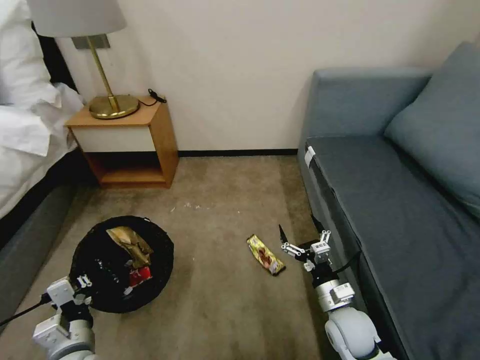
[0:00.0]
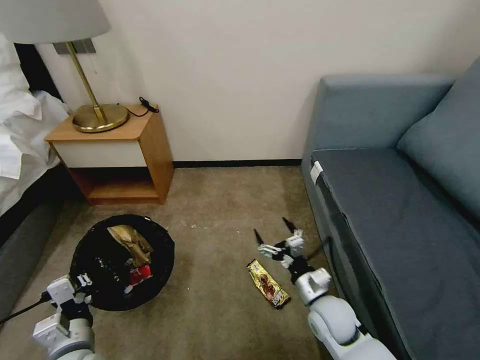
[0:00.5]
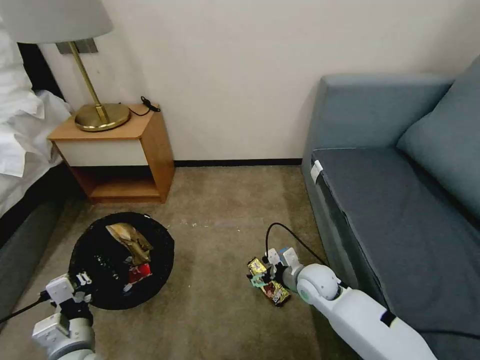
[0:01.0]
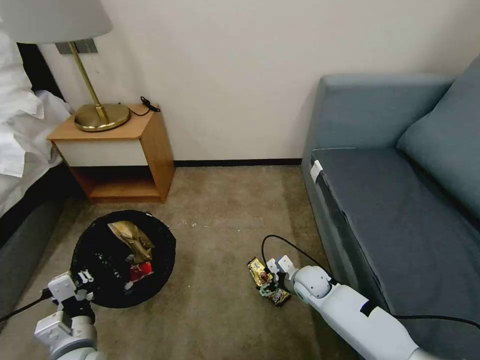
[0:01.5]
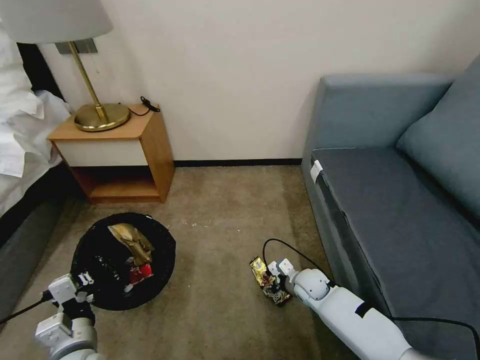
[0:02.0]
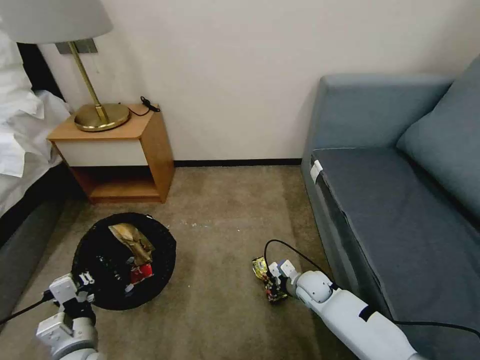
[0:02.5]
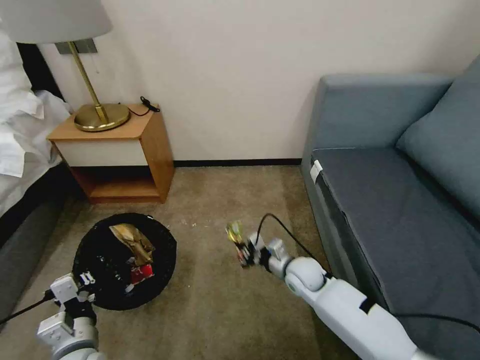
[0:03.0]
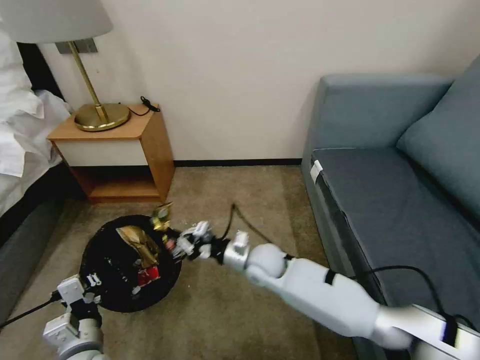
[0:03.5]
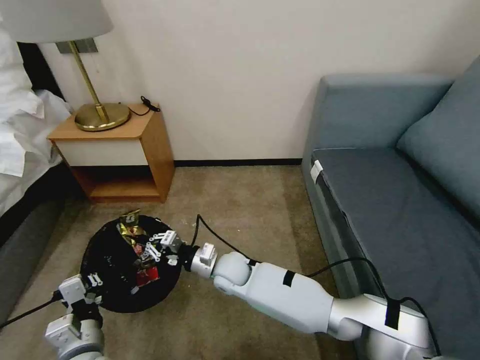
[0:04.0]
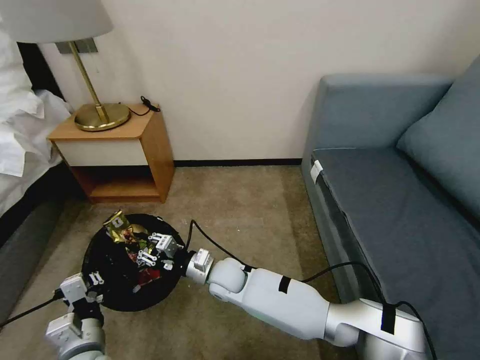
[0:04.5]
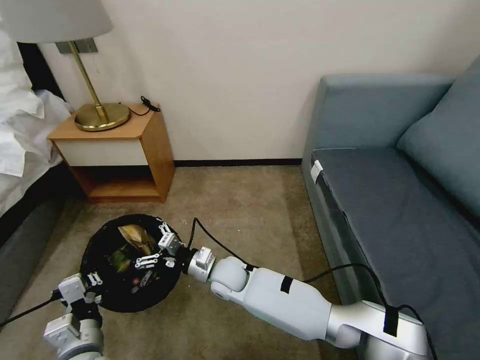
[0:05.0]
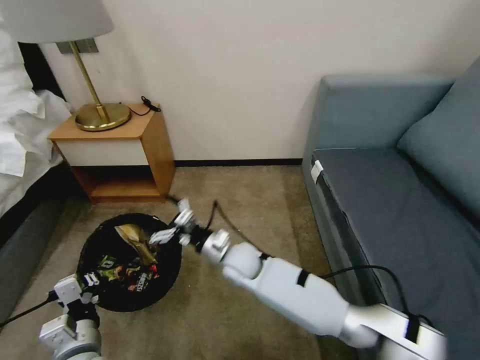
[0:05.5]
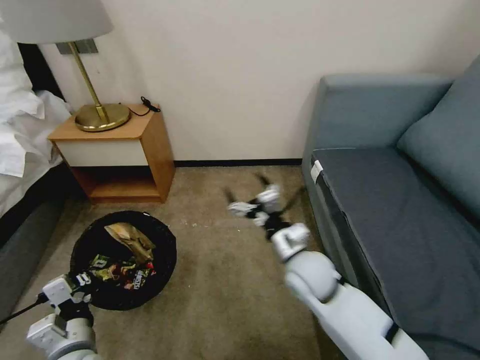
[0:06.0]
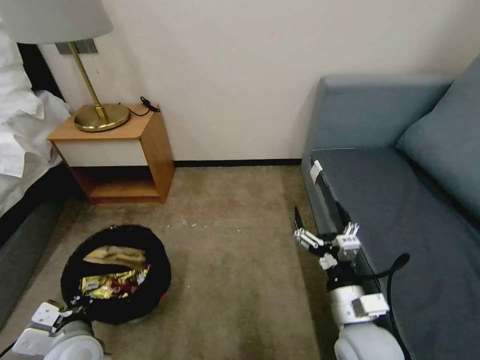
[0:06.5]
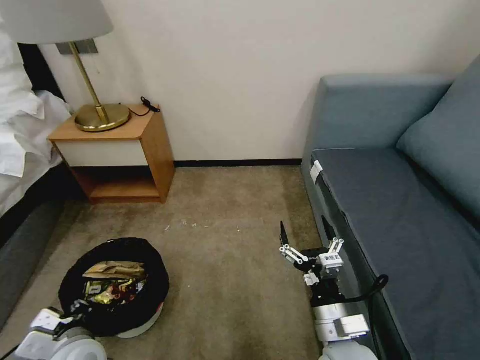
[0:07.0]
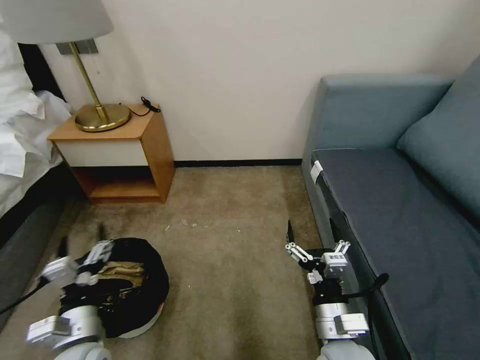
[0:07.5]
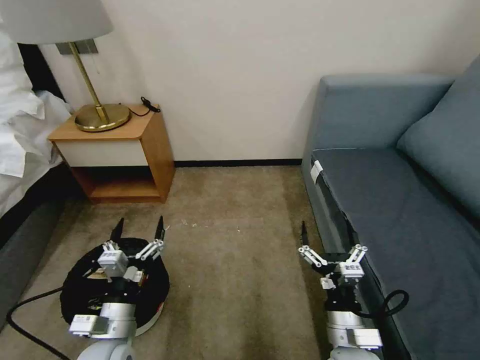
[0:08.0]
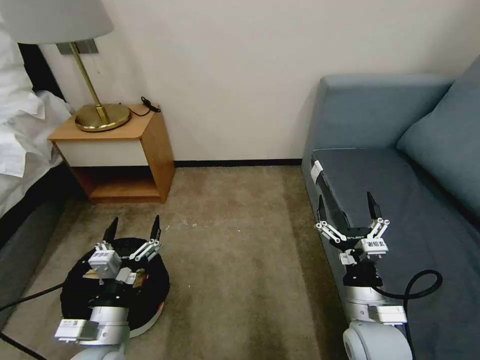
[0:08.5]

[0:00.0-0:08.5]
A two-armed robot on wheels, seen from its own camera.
Task of the whole recording: Pick up the trash bin, then pick up the garbage on the floor and place it into the trash bin.
0:00.0 to 0:02.0: The right gripper travels forward and downward by about 15 cm.
0:02.0 to 0:04.0: The right gripper is displaced to the left and upward by roughly 25 cm, and closes.
0:04.0 to 0:06.5: The right gripper is displaced to the right, backward and upward by roughly 30 cm, and opens its fingers.
0:06.5 to 0:08.5: The left gripper goes roughly 5 cm to the right, and opens its fingers.

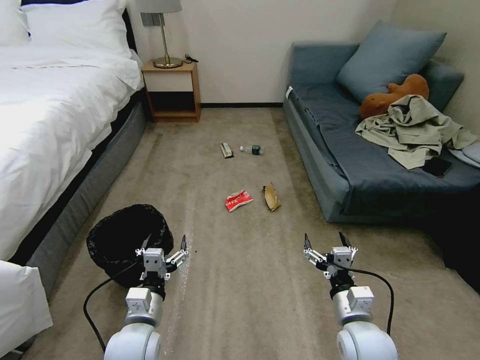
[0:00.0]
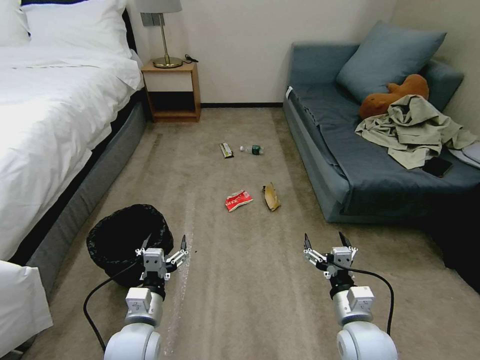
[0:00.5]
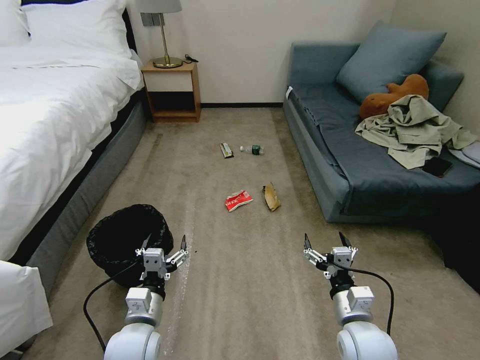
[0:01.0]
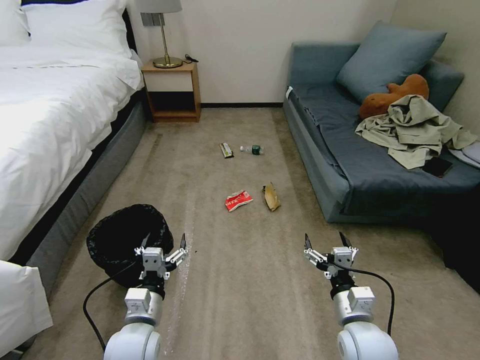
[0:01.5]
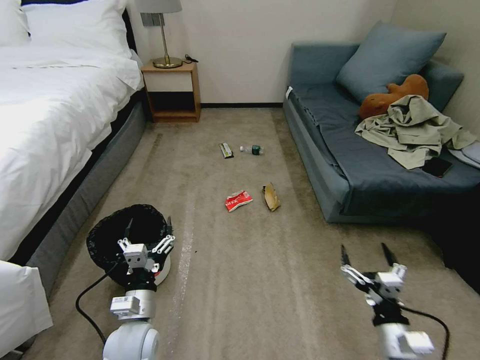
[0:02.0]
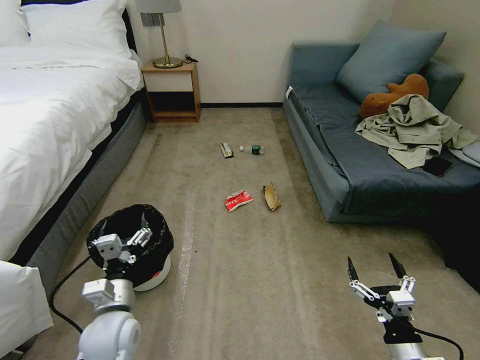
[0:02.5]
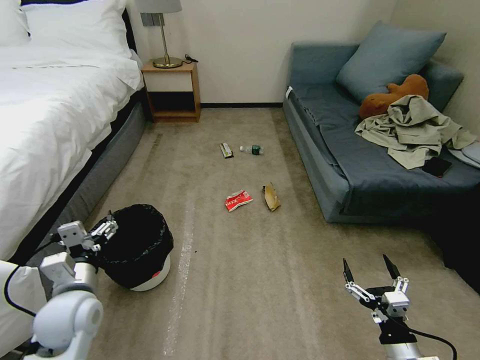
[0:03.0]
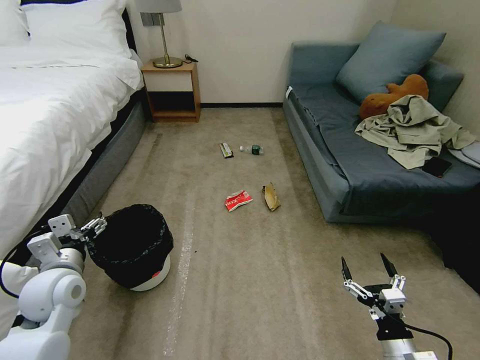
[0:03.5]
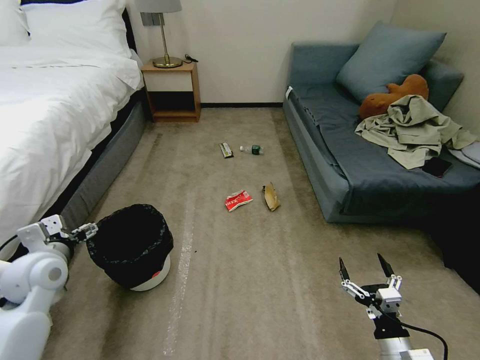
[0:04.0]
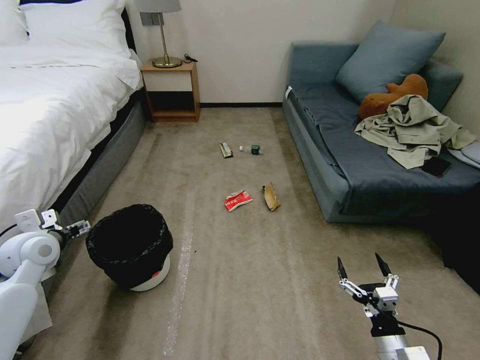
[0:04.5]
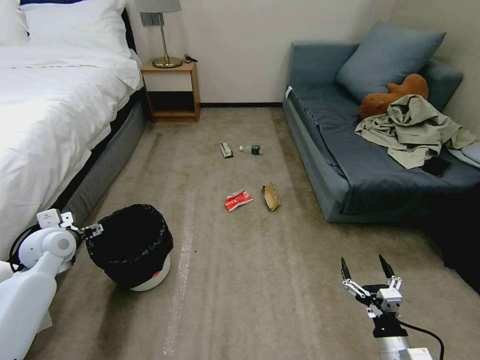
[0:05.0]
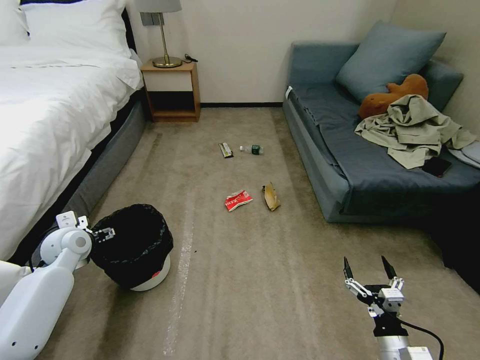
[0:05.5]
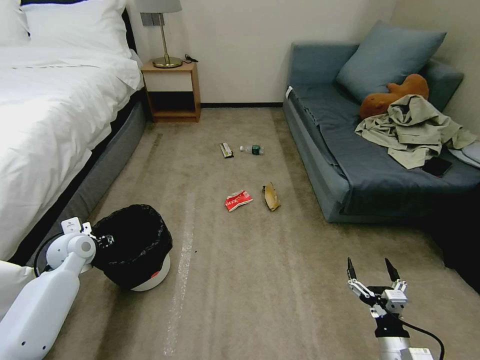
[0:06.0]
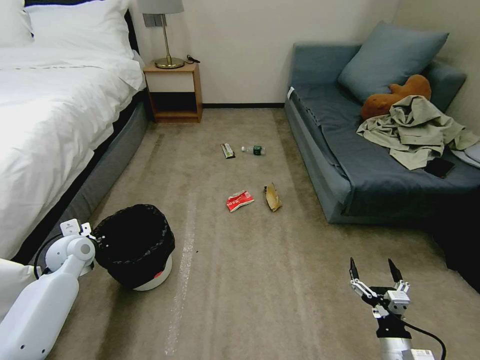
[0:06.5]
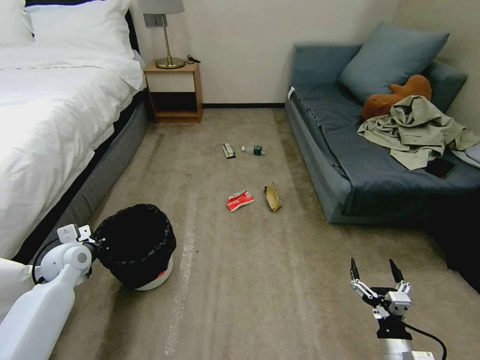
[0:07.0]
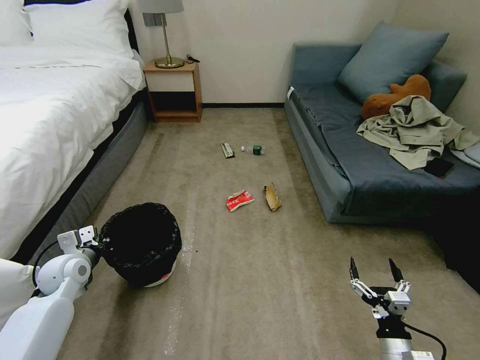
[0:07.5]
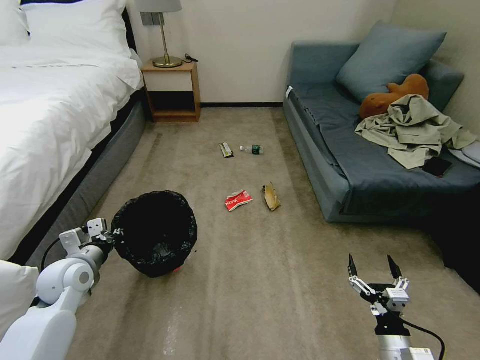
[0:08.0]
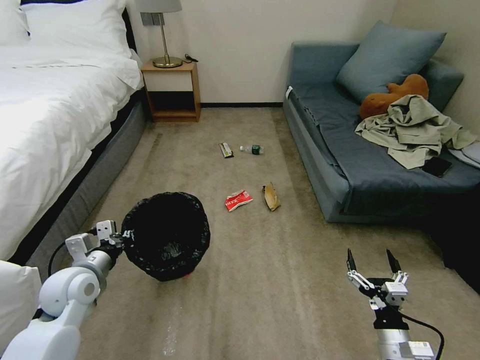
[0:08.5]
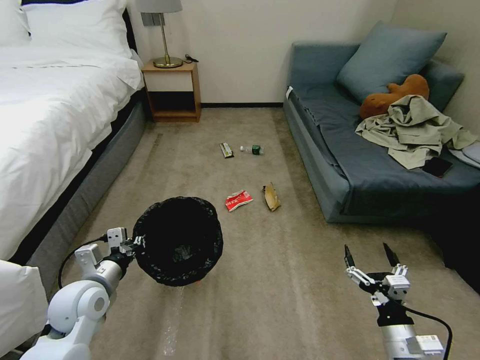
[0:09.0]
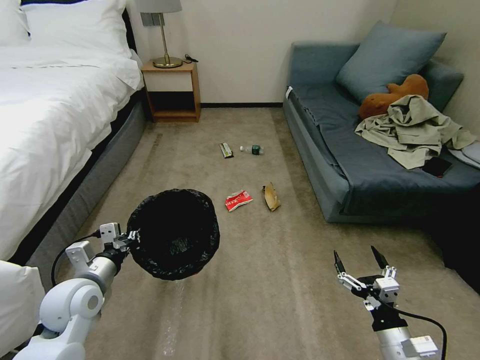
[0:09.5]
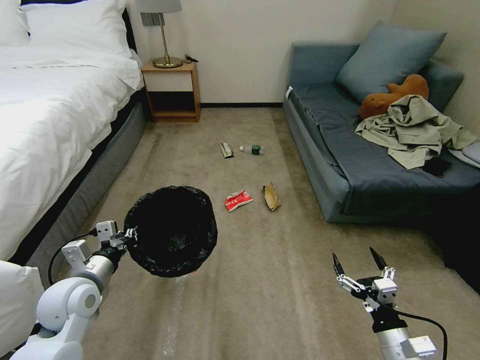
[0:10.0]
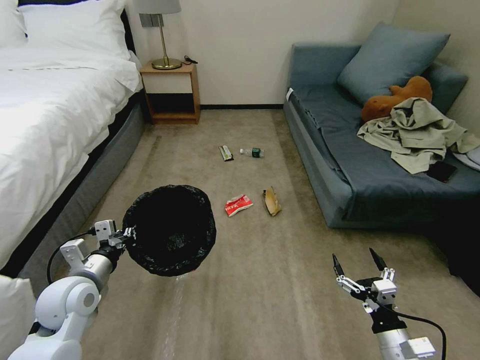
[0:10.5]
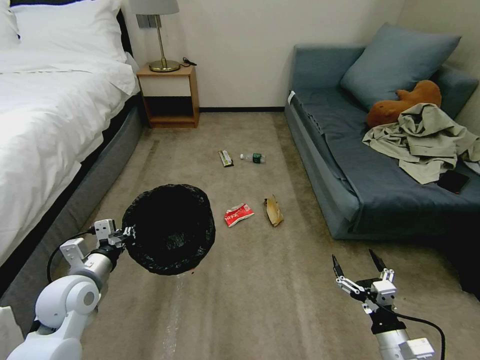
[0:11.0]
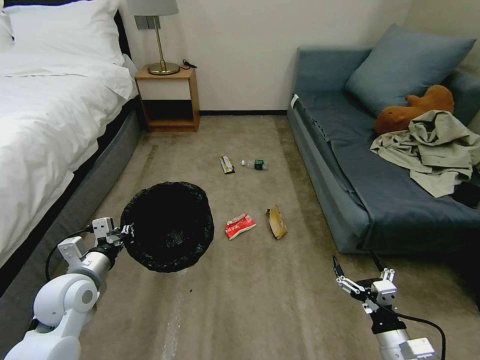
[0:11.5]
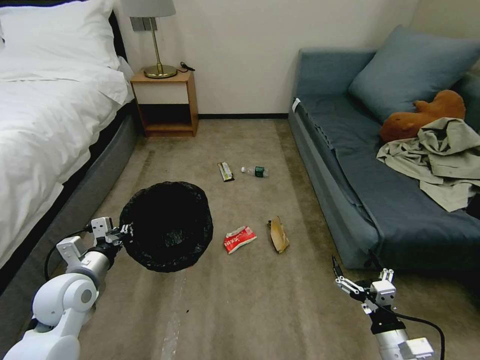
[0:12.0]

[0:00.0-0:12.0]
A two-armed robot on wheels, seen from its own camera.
Task of the whole recording: Pick up the trash bin, then pick up the garbage on the floor and place it into the trash bin.
0:02.0 to 0:04.0: The left gripper goes roughly 25 cm to the left, upward and forward.
0:04.0 to 0:06.0: The left gripper shifts some 10 cm forward and downward.
0:06.0 to 0:08.0: The left gripper heads backward, covering about 10 cm, and closes its fingers.
0:08.0 to 0:10.0: The left gripper goes approximately 5 cm backward.

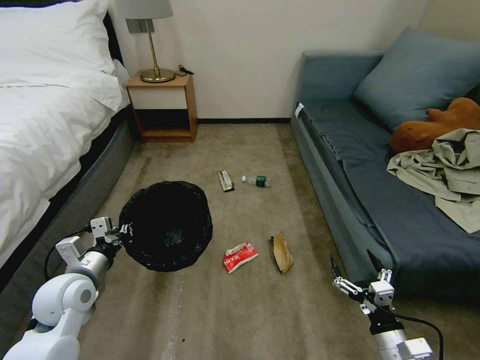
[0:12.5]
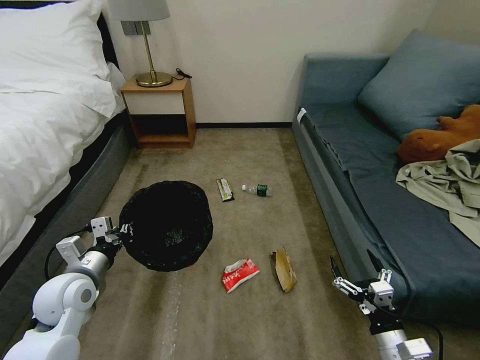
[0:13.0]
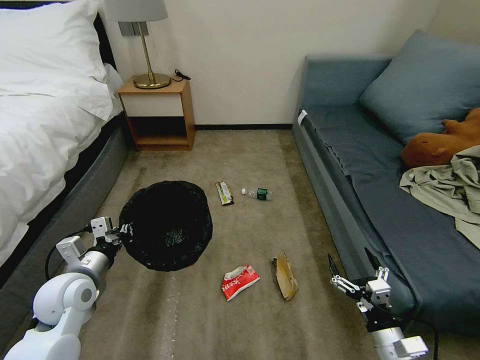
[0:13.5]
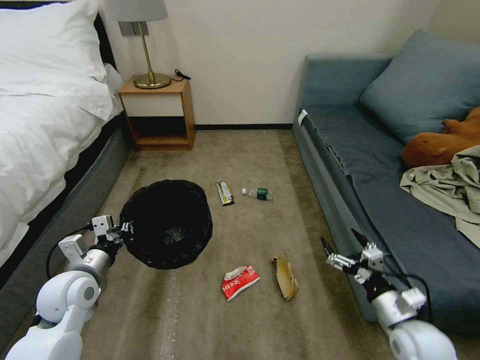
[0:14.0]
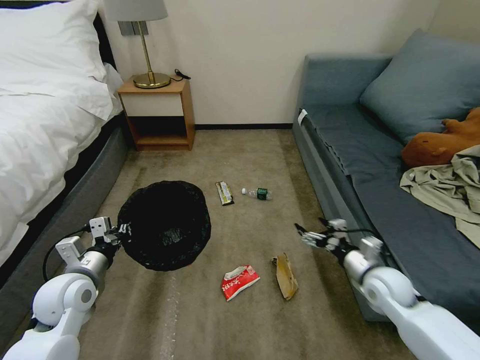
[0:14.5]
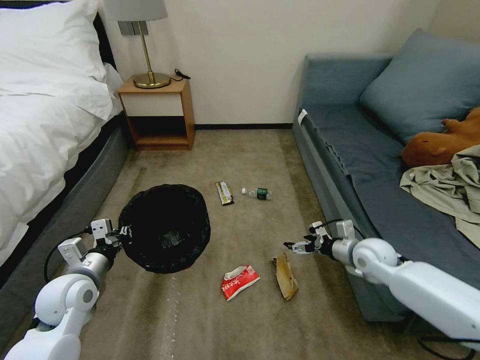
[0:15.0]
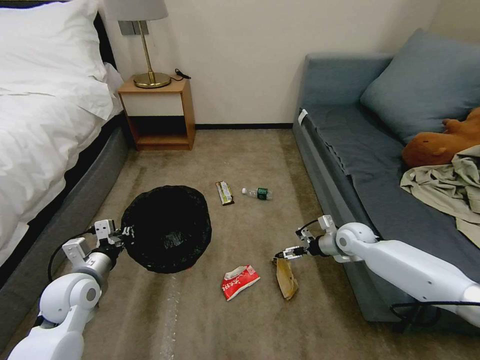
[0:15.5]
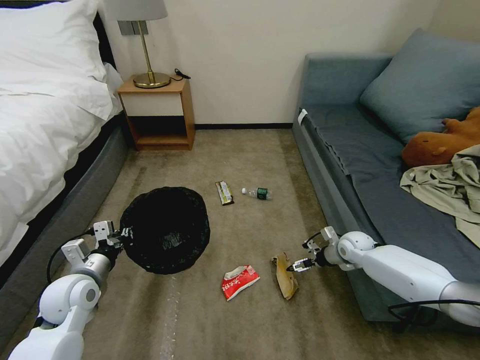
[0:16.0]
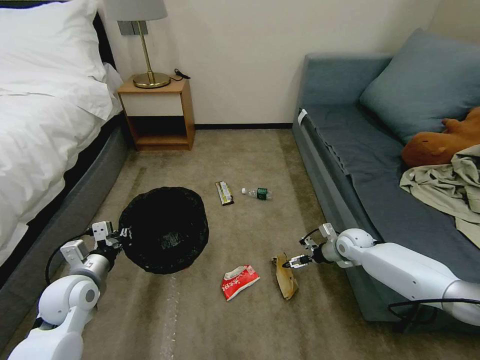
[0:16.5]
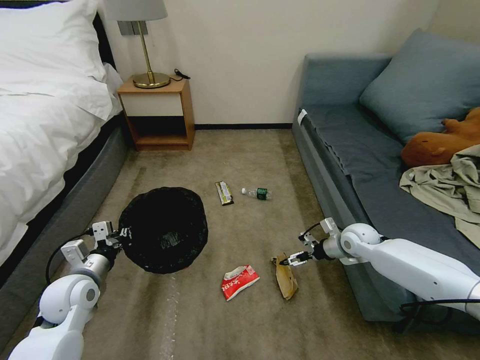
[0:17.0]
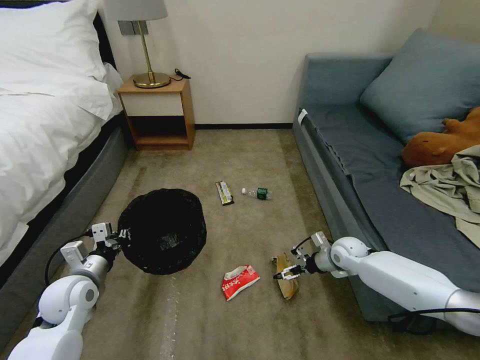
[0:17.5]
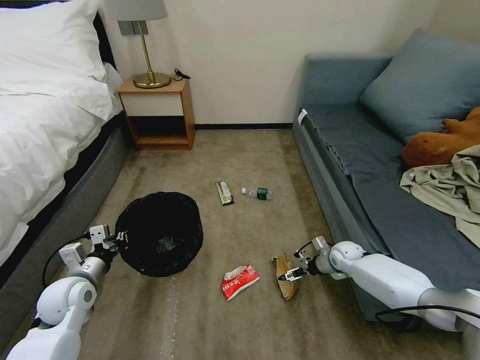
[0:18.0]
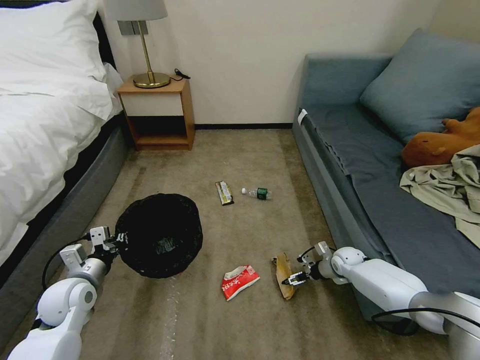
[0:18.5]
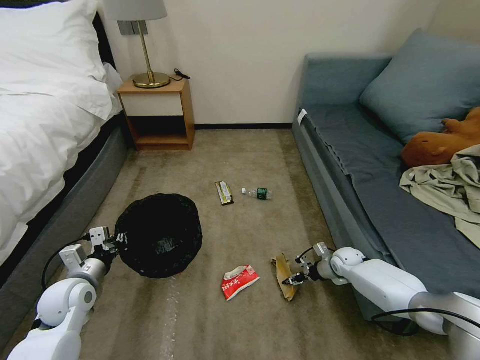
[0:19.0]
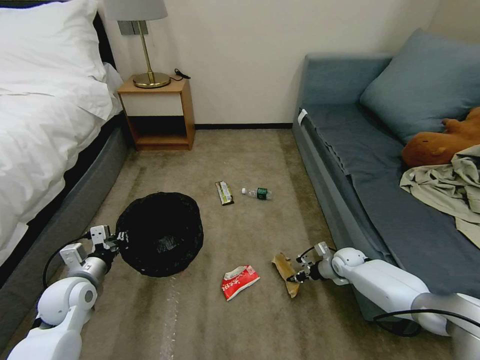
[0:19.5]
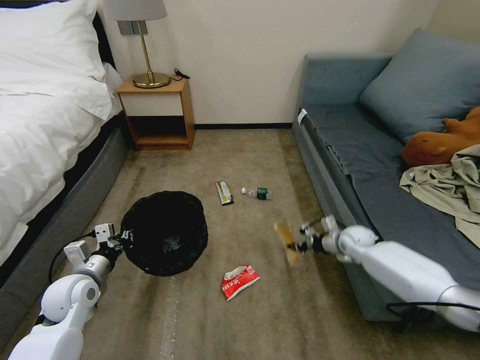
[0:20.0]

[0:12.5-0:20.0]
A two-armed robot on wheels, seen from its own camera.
Task of the whole recording: Pick up the trash bin, then pick up the garbage on the floor and place it into the trash bin.
0:12.5 to 0:14.5: The right gripper is displaced forward by about 20 cm.
0:14.5 to 0:16.5: The right gripper moves forward, roughly 15 cm.
0:16.5 to 0:18.0: The right gripper heads downward, covering some 5 cm.
0:18.0 to 0:20.0: The right gripper is displaced upward by some 5 cm, and closes its fingers.
